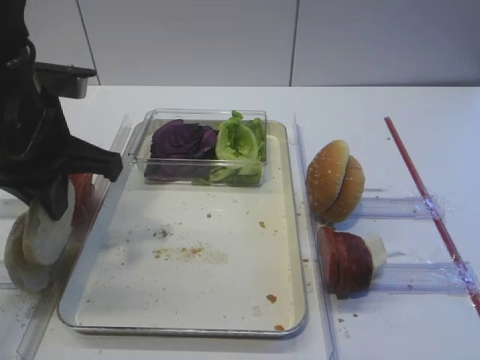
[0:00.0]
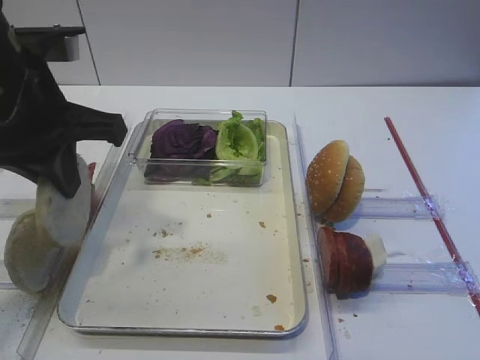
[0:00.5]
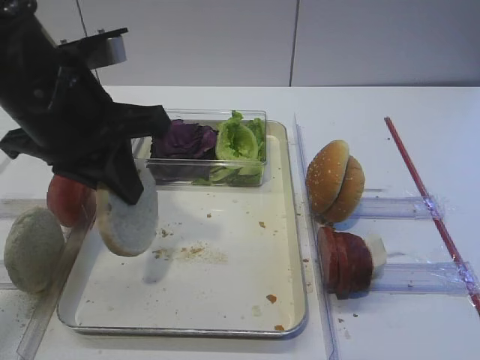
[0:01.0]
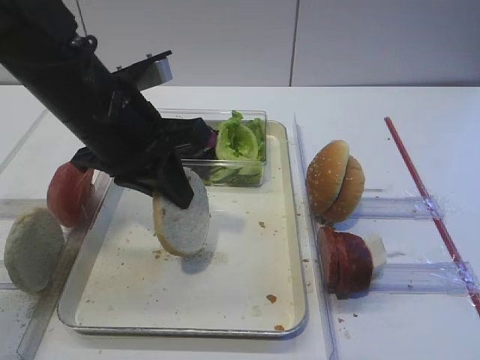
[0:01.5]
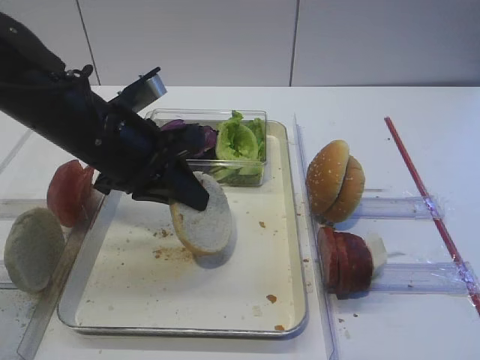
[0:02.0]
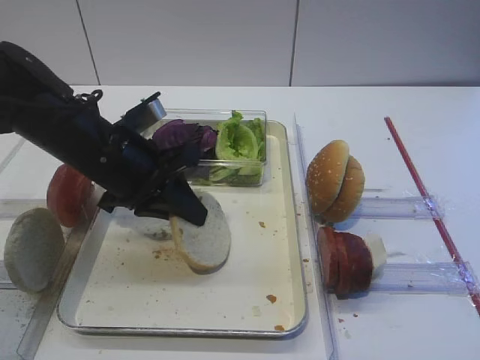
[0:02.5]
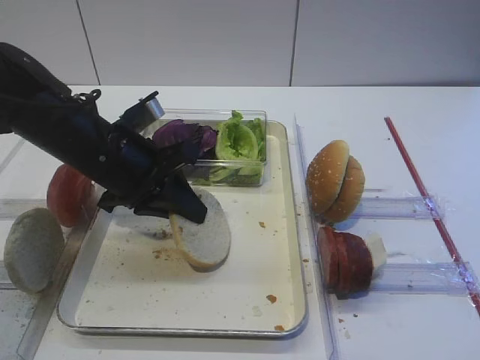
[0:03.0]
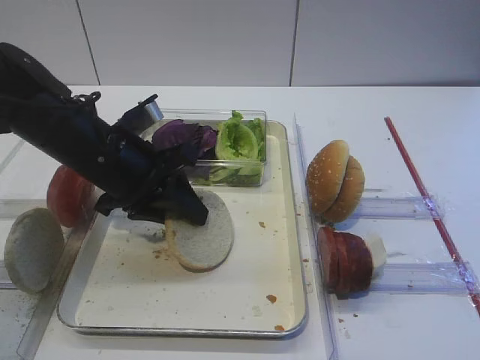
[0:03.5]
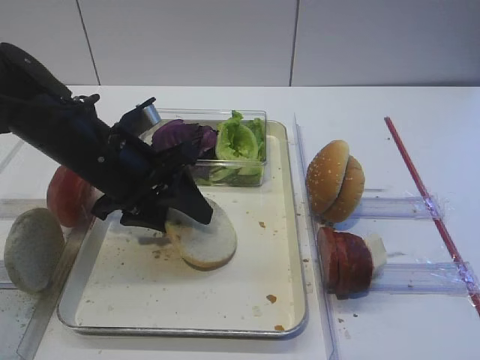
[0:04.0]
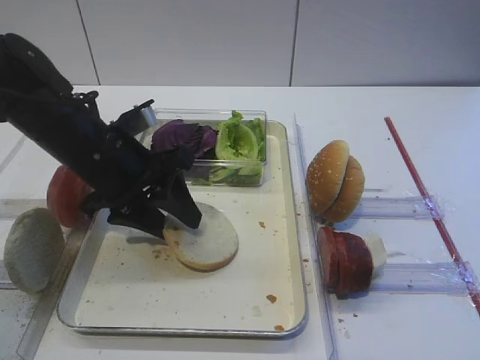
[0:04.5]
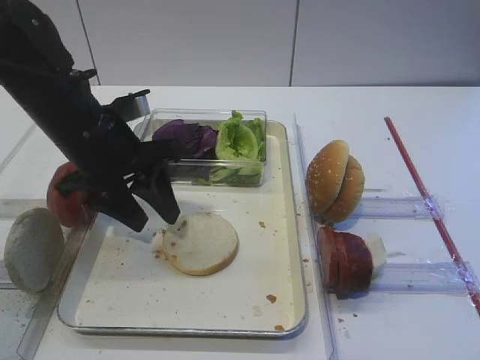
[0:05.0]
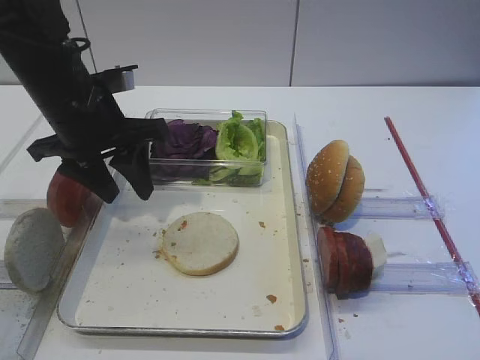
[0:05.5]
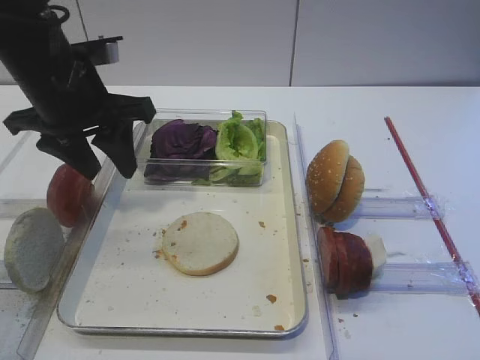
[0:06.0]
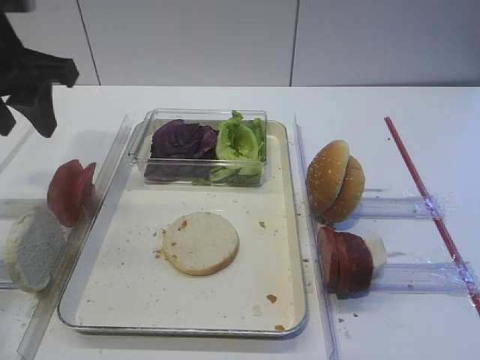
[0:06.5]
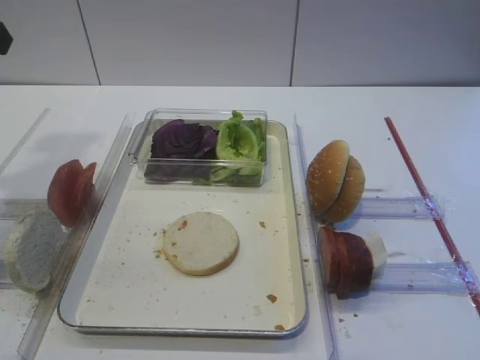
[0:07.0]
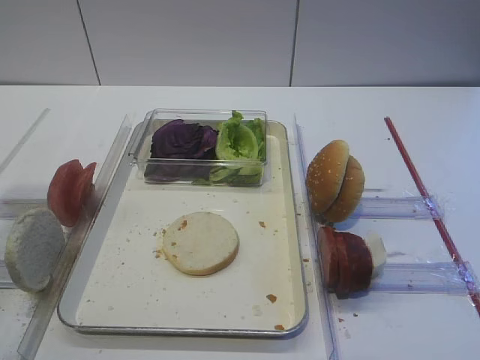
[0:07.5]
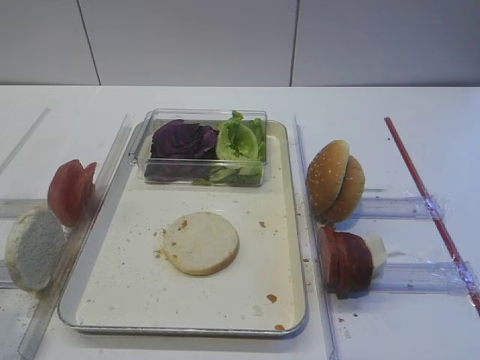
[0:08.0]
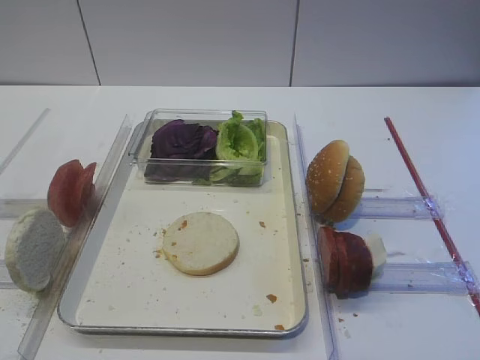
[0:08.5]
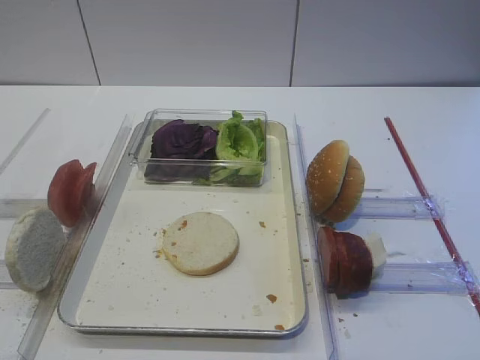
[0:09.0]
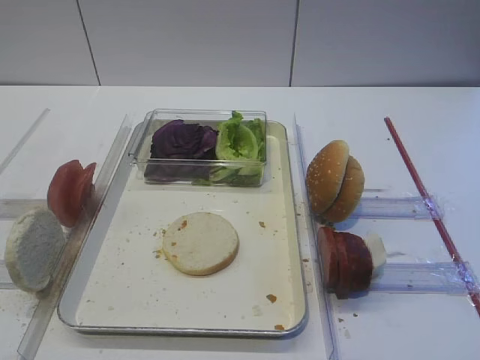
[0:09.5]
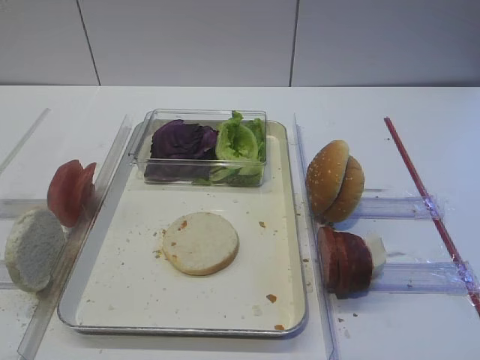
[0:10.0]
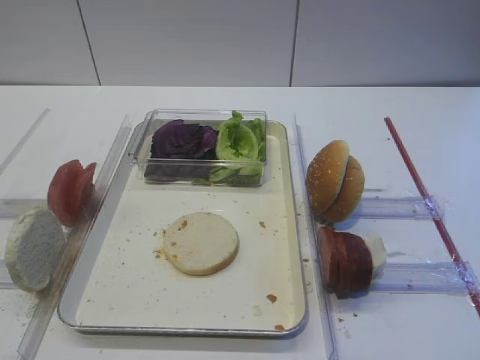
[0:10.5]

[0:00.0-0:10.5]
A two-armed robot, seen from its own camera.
Step, 0:00.5 to 0:04.5: Place the bread slice on the tray with the left gripper.
0:00.0 to 0:02.0: The left gripper travels to the right by approximately 5 cm.
0:02.0 to 0:04.0: The left gripper opens up.
0:04.0 to 0:06.5: The left gripper travels upward and to the left by approximately 15 cm.
0:06.5 to 0:08.5: The left gripper travels backward by about 30 cm.

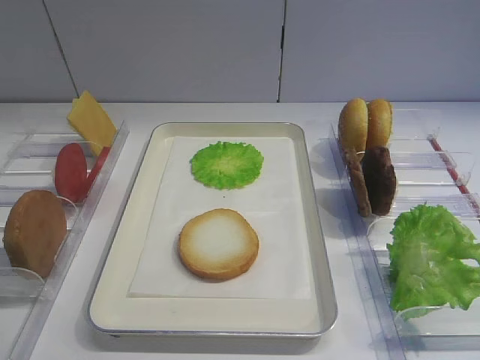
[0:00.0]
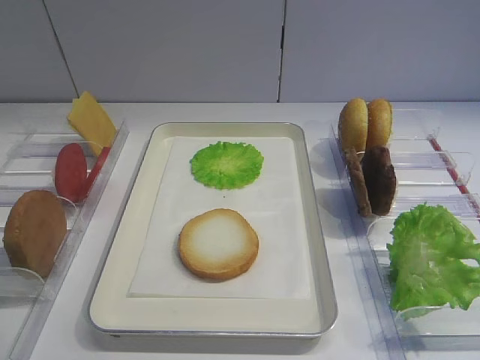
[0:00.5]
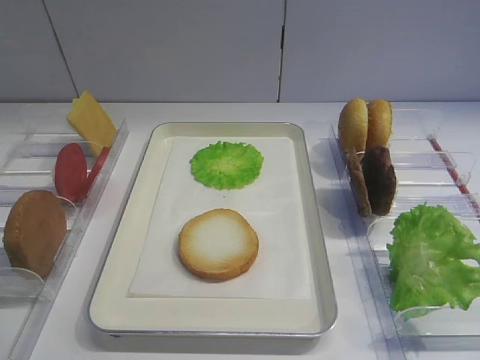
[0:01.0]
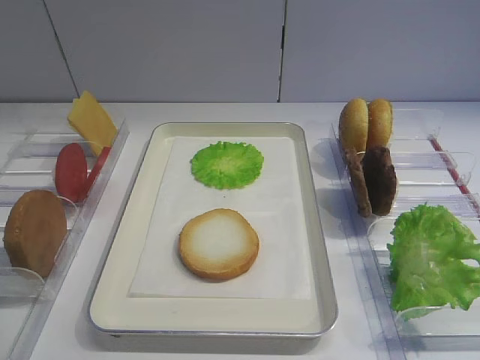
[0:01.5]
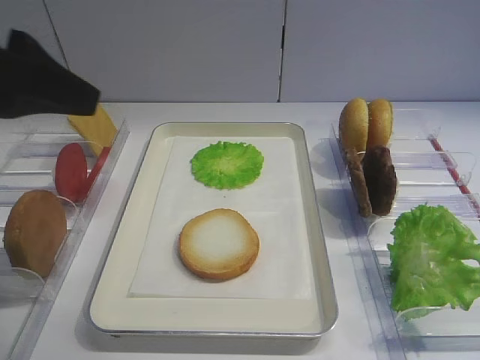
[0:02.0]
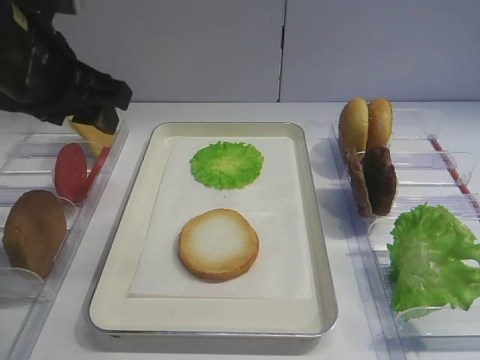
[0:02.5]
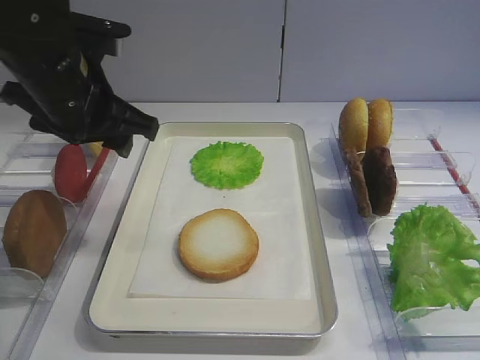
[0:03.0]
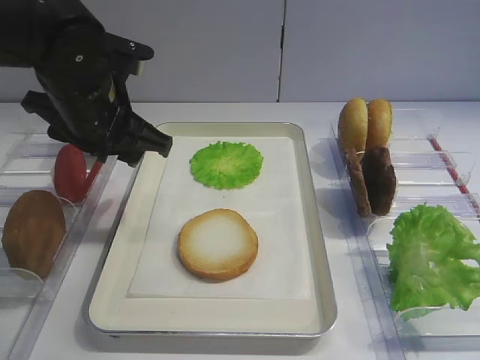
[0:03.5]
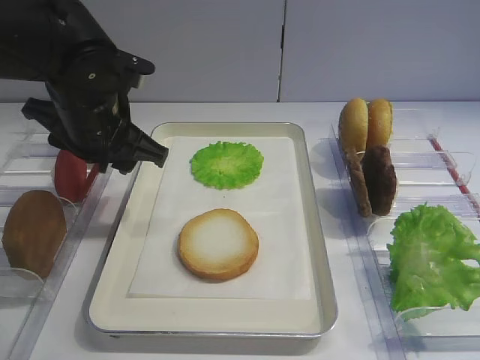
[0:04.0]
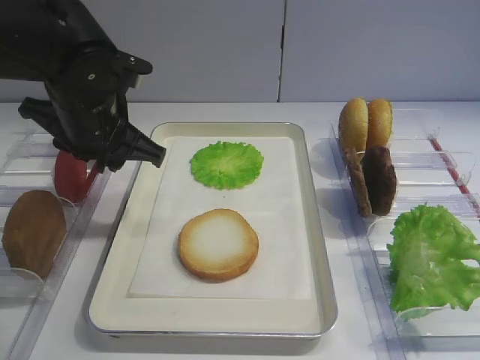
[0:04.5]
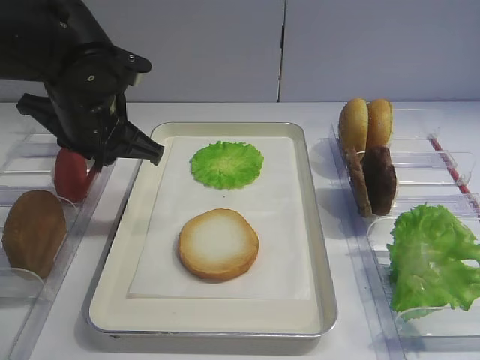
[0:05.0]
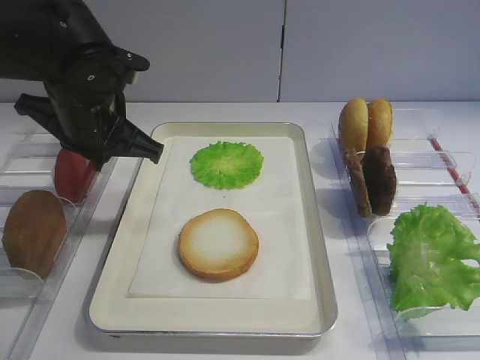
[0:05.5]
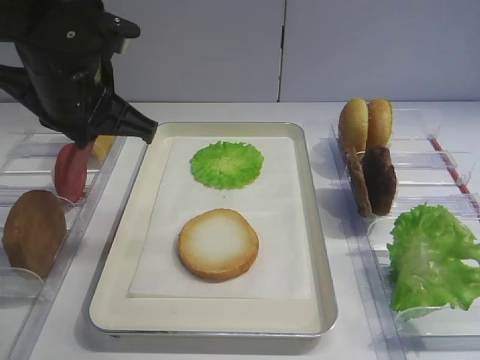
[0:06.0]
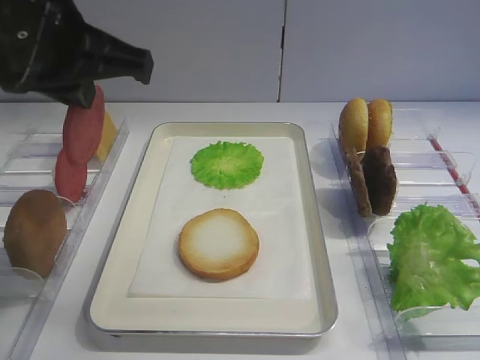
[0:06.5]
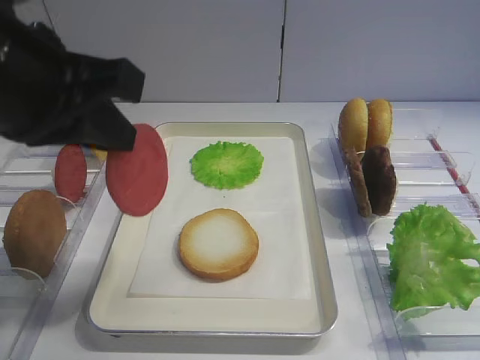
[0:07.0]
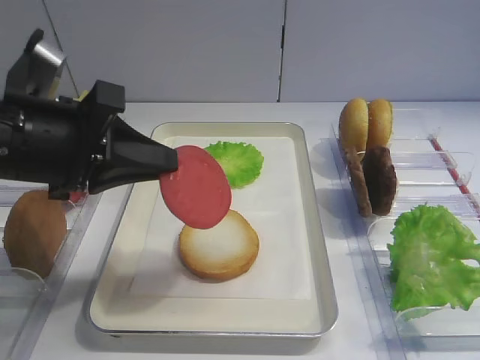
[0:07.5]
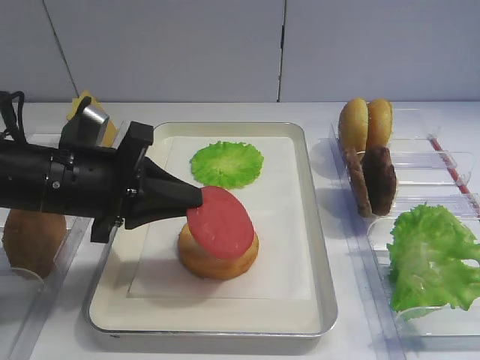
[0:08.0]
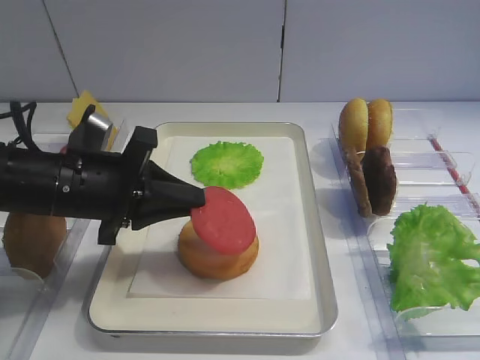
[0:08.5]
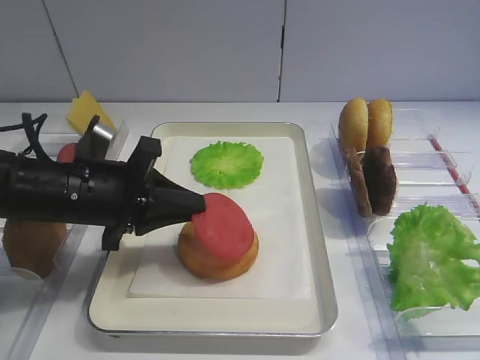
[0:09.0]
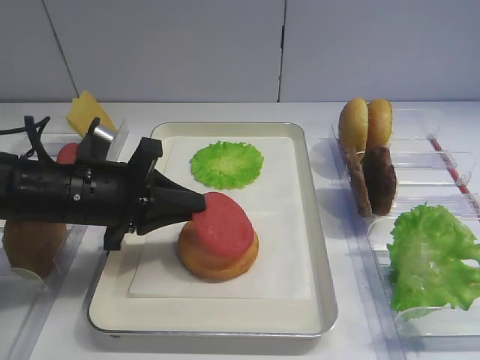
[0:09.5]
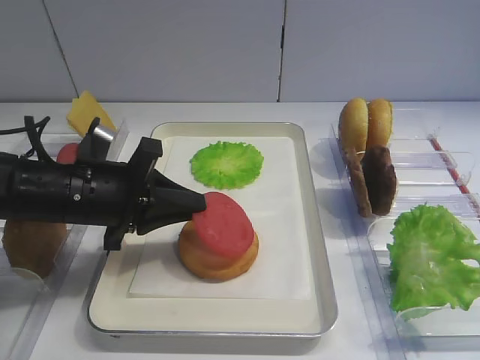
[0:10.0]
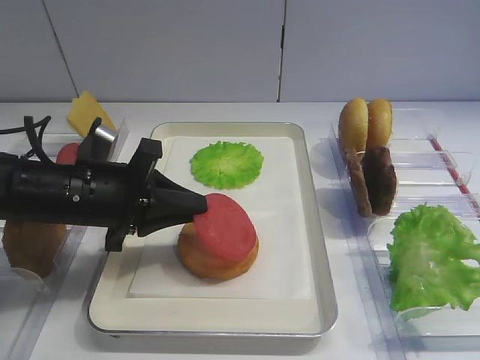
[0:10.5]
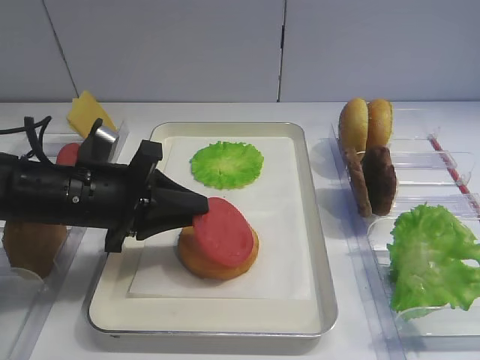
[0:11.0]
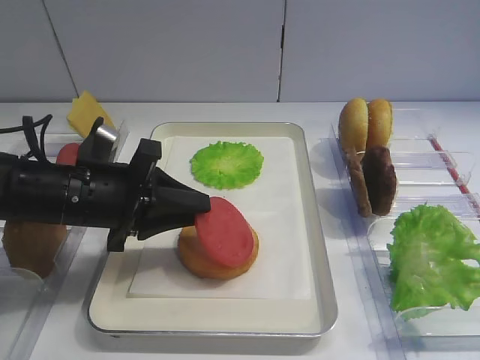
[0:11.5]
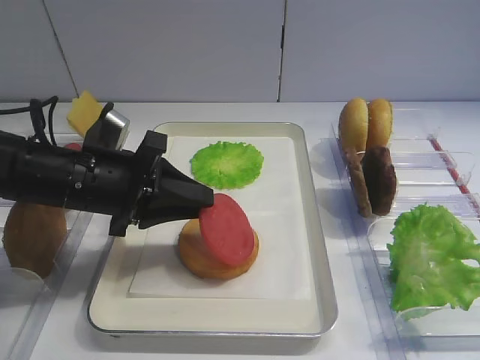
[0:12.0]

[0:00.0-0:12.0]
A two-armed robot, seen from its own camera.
Step, 0:00.0 to 0:06.0: Pick up the tomato slice with the left gripper.
0:02.0 to 0:04.0: The left gripper shifts roughly 20 cm forward, downward and to the right.
0:04.0 to 0:06.0: The left gripper ends up approximately 5 cm from where it was, and closes.
0:06.0 to 0:08.0: The left gripper moves downward and backward, approximately 10 cm.
0:08.0 to 0:12.0: The grippers make only small movements.

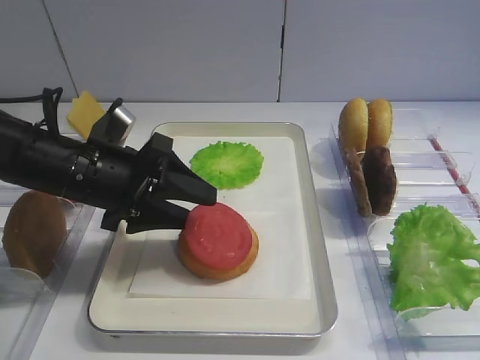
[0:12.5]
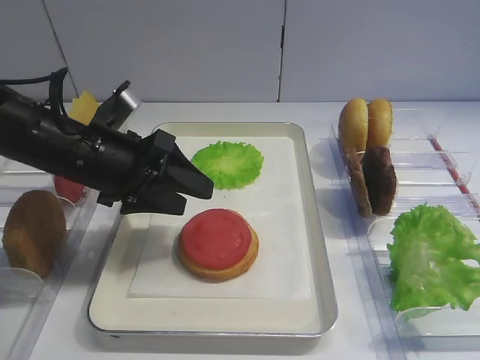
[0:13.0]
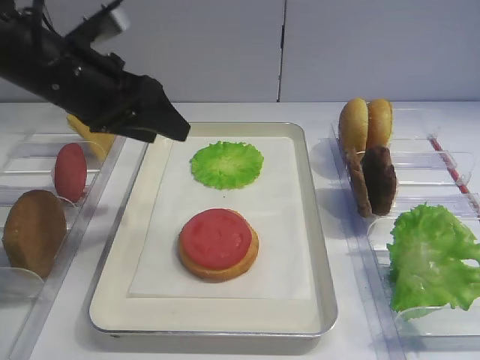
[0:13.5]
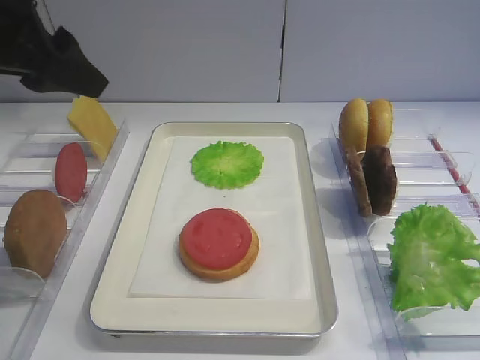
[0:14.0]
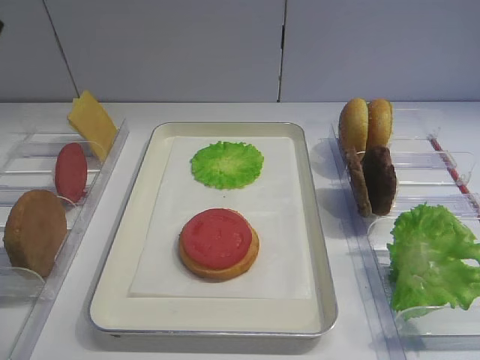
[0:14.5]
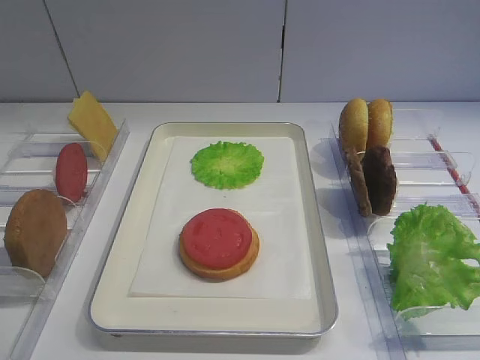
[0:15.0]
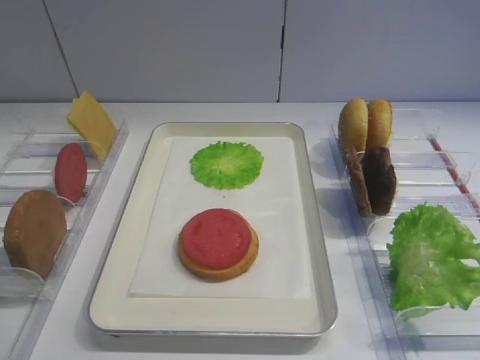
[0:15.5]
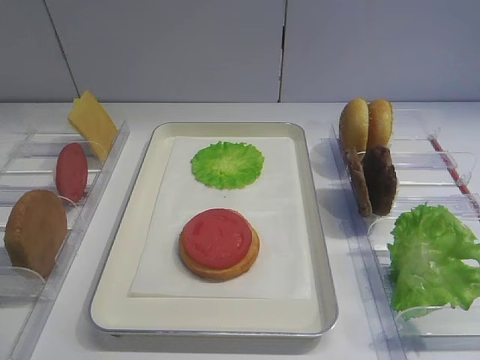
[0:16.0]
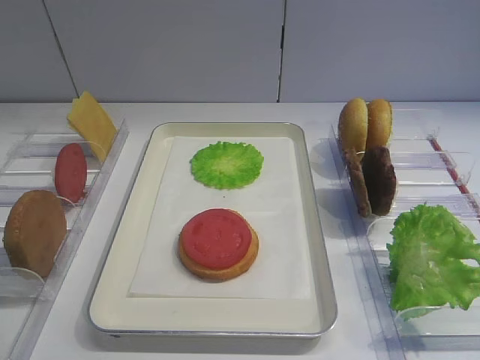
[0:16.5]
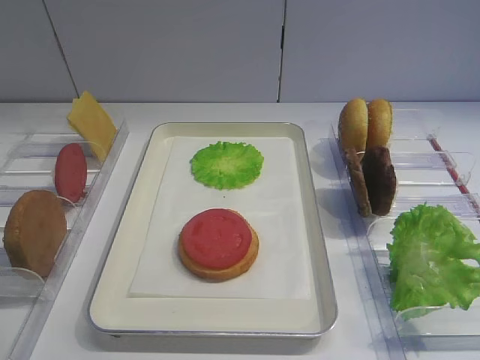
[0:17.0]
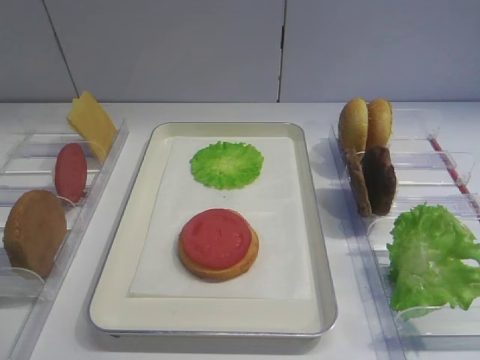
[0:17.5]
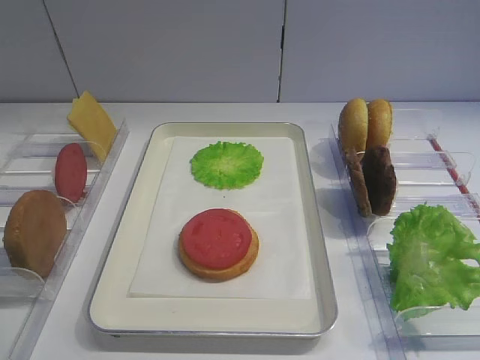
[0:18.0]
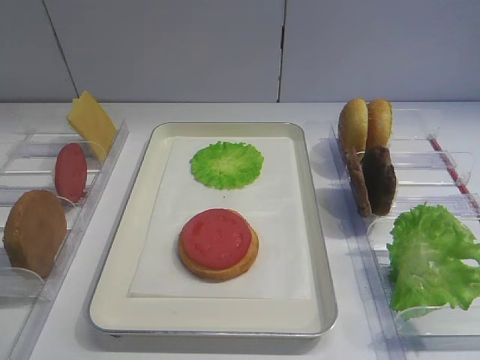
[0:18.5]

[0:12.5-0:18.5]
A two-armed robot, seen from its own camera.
0:12.5 to 0:14.5: The left gripper moves upward and backward, approximately 25 cm.
